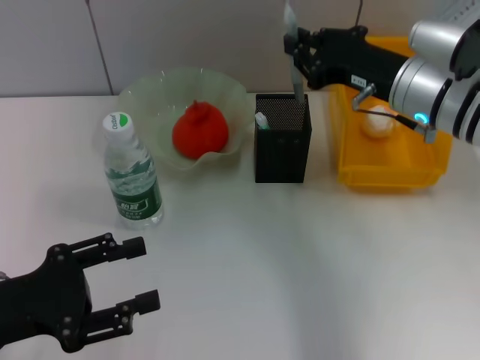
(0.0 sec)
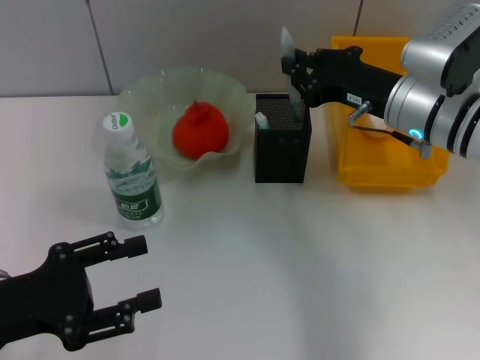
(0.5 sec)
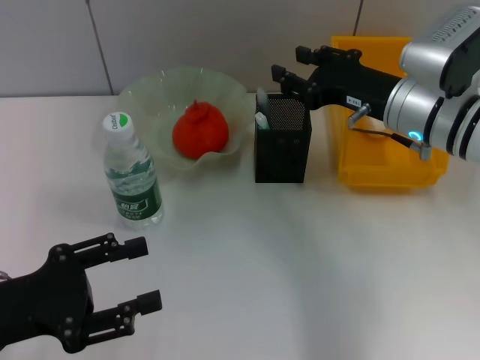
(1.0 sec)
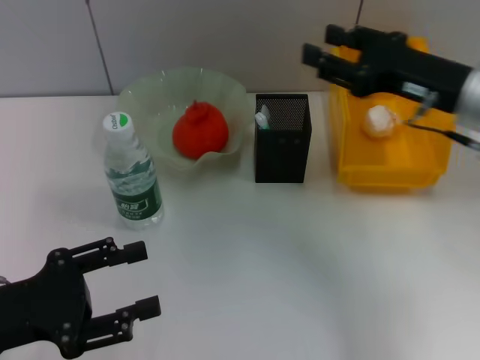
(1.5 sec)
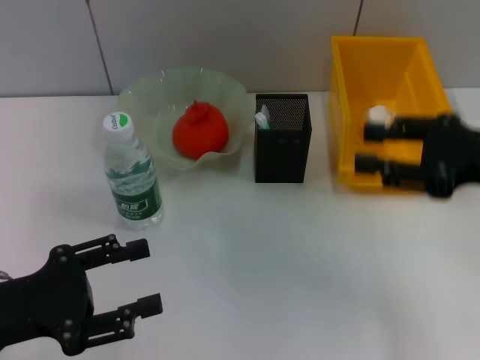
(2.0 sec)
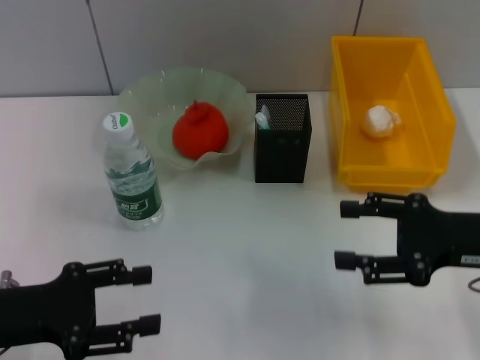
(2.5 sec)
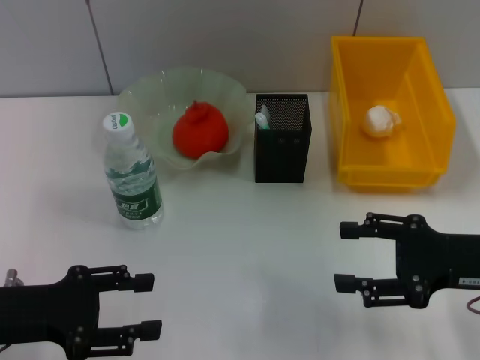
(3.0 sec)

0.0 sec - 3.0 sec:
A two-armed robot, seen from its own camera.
0.0 sec - 1.5 sec: The right gripper shifts by roughly 5 cm, and opens its fingers.
1.5 sec - 3.0 sec: The right gripper shifts about 10 cm backward and downward.
